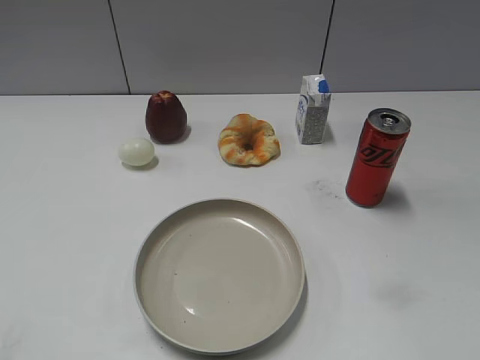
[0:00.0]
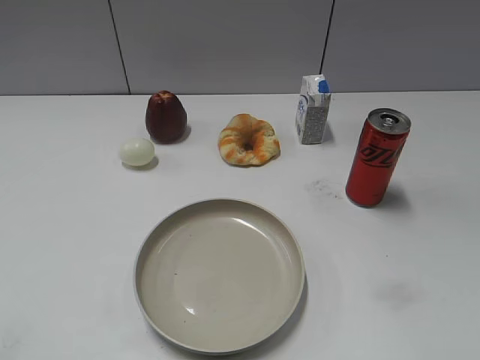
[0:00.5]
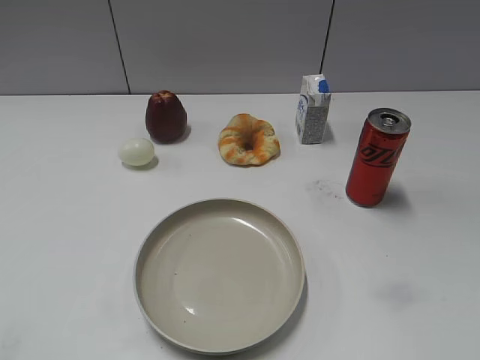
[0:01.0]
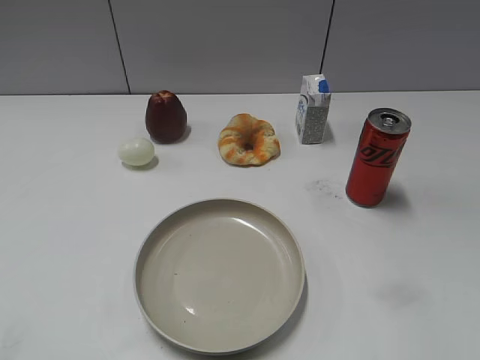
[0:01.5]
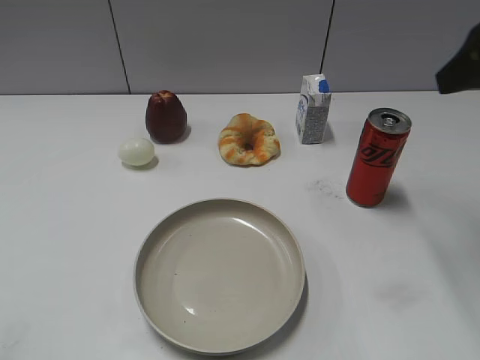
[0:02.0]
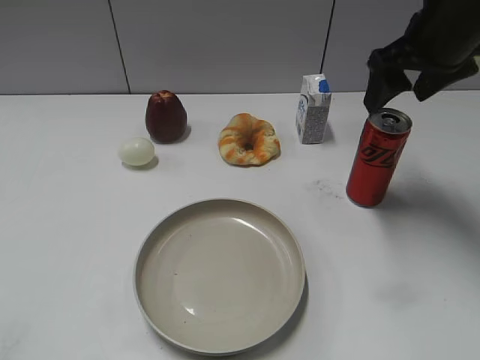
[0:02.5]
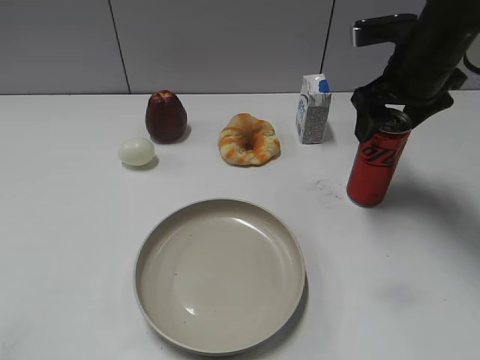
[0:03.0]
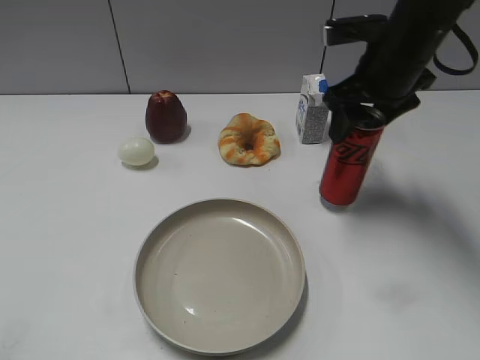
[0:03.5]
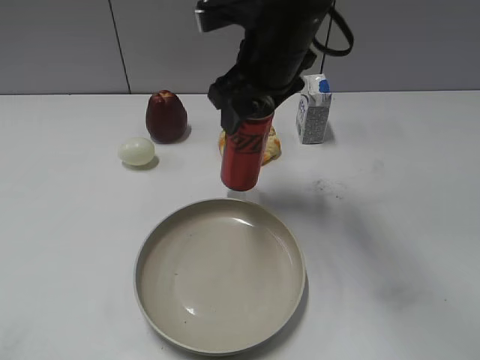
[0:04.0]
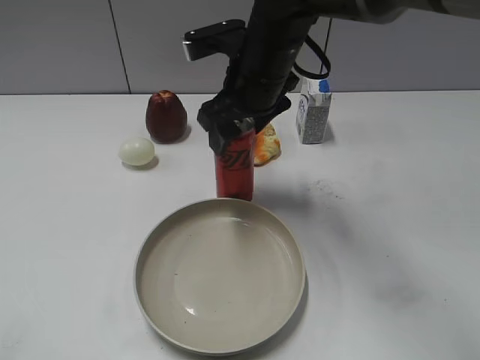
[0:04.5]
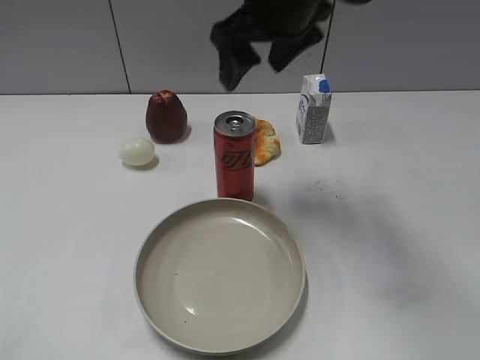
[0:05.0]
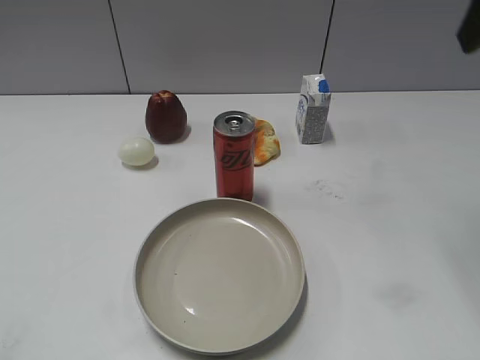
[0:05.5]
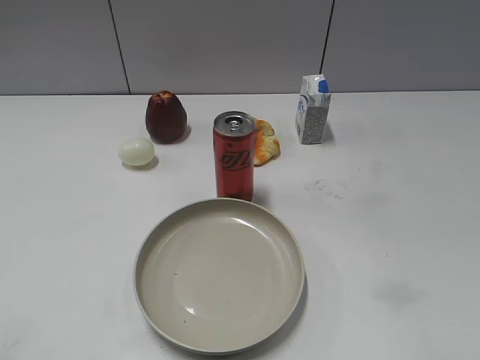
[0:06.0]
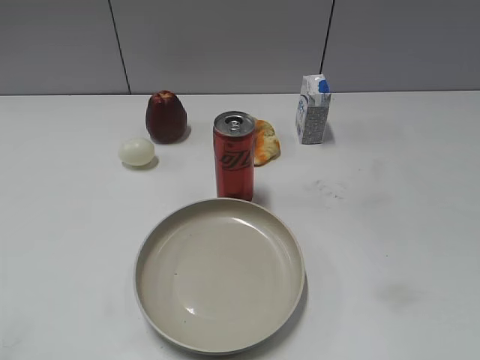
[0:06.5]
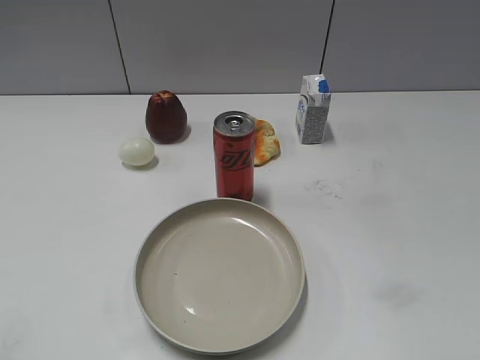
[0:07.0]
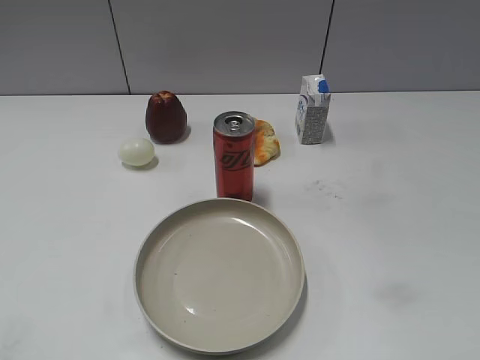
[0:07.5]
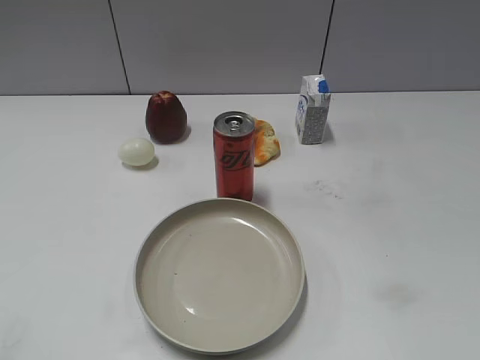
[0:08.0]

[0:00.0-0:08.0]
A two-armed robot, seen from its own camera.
Step, 0:01.0 to 0:03.0: Grasp the cola with right gripper.
Step, 0:03.5 to 0:05.0: Place the cola on the plate with right gripper.
0:02.0 to 0:04.0: The right gripper goes about 25 cm to the left and forward, and closes.
0:04.0 to 0:06.0: The right gripper shifts some 30 cm backward and to the right, and opens.

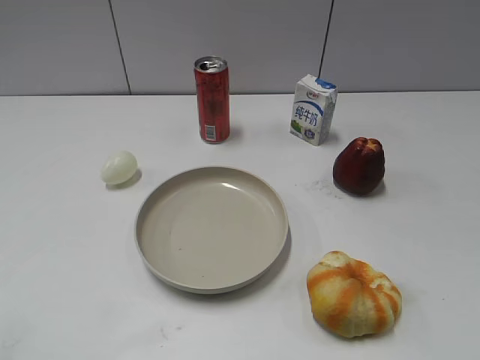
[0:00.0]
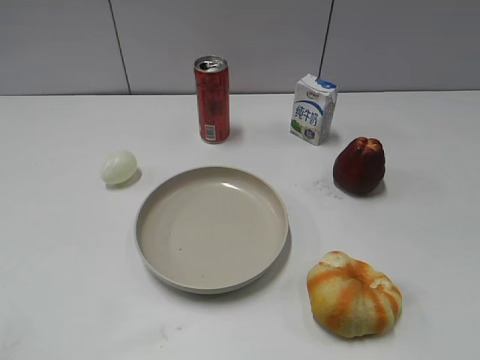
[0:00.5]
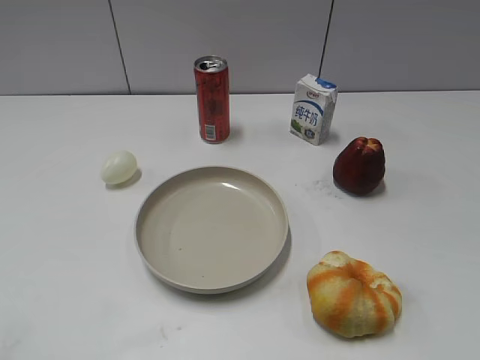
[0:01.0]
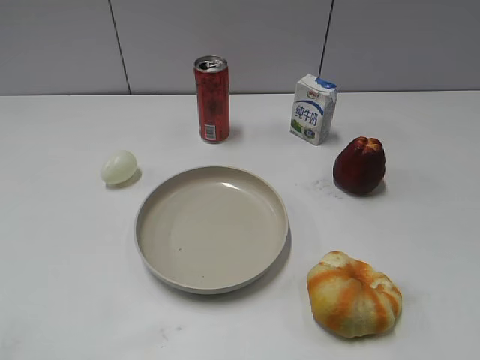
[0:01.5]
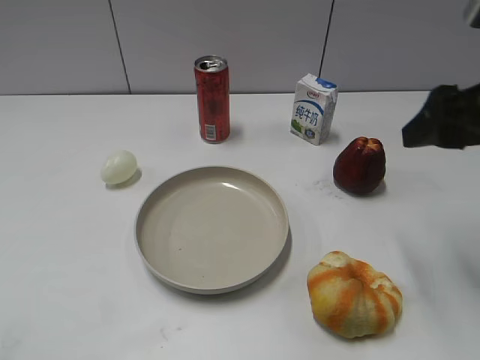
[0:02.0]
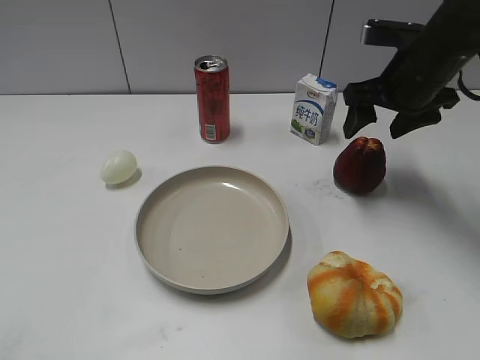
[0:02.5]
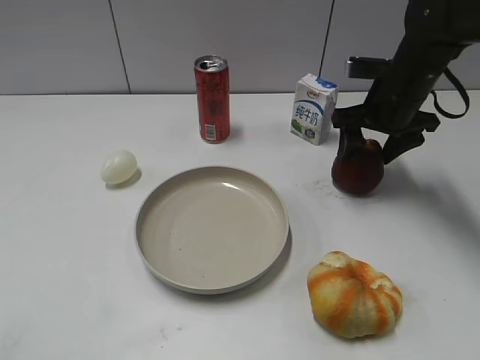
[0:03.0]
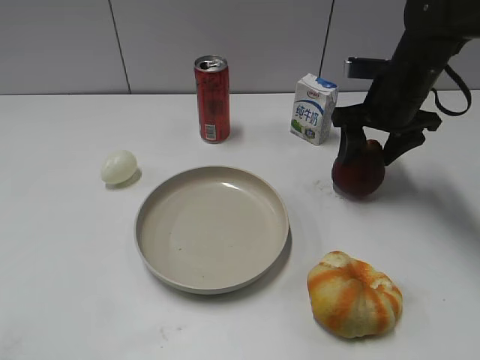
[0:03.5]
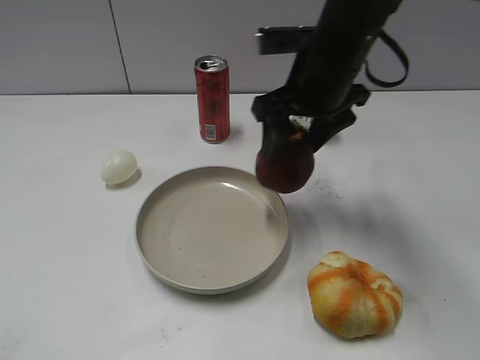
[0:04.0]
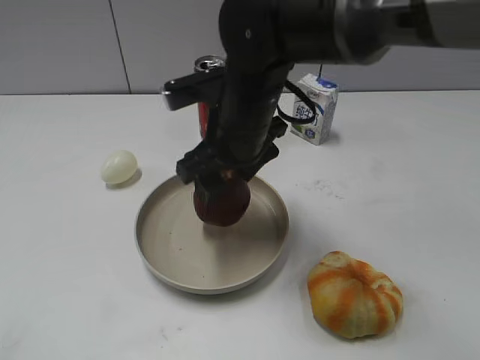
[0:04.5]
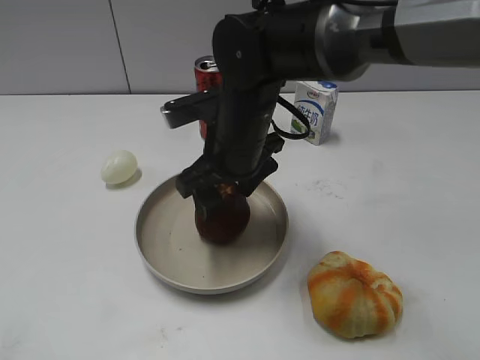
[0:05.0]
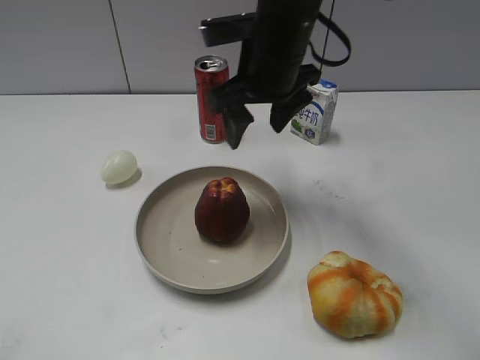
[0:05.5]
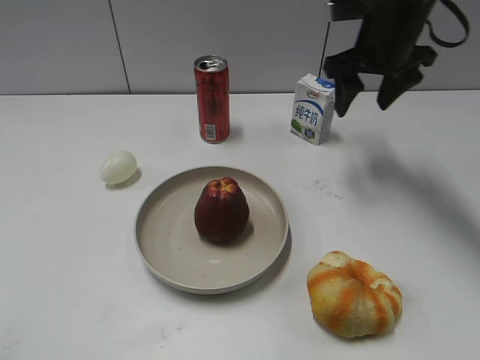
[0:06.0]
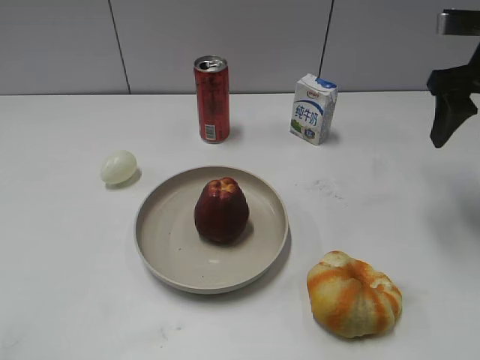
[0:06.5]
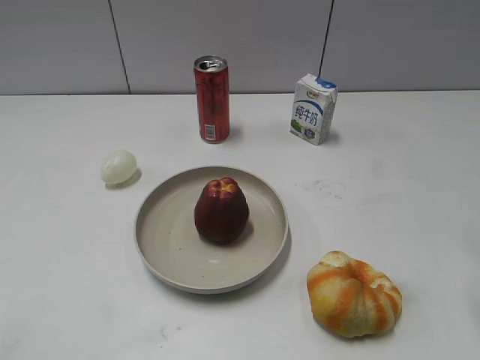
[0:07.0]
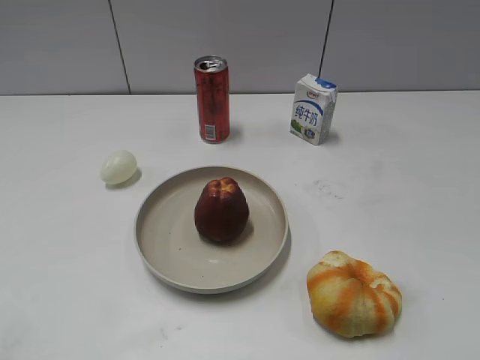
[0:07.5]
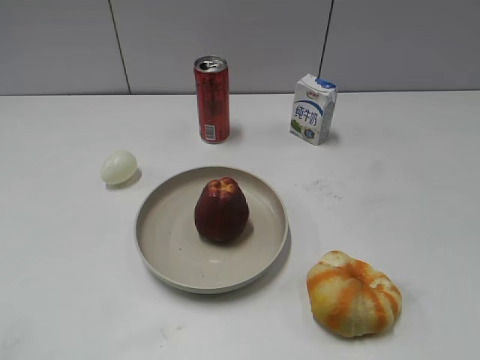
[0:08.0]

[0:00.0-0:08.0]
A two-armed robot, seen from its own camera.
Step, 0:01.0 to 0:03.0: Grasp the apple with right gripper.
Step, 0:03.5 to 0:05.0: Place the apple on the plate with right gripper.
0:02.0 to 0:04.0: The right gripper travels to the left and forward by roughly 20 cm, and closes its fingers.
0:04.0 to 0:06.0: The right gripper travels to the right and forward by roughly 15 cm, and opens and closes again.
0:06.0 to 0:08.0: The right gripper is displaced backward by roughly 40 cm.
